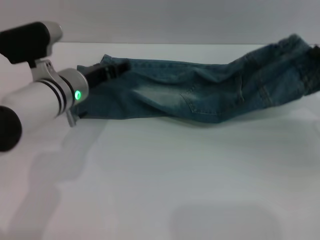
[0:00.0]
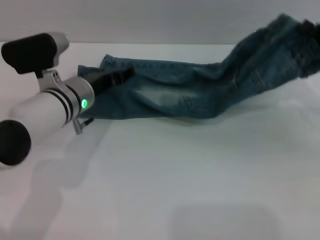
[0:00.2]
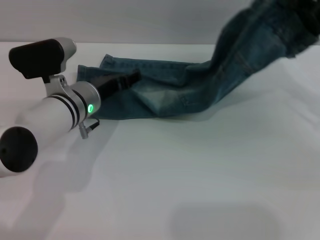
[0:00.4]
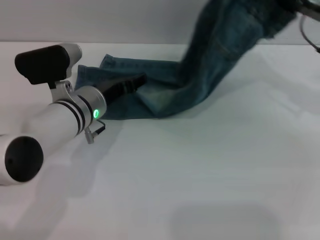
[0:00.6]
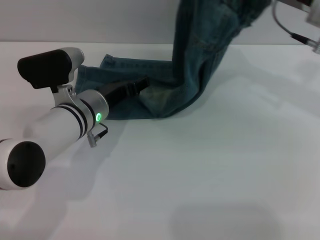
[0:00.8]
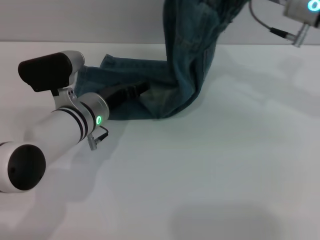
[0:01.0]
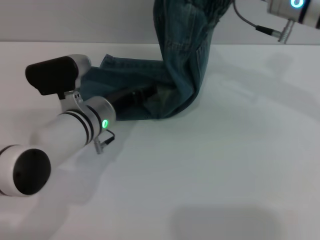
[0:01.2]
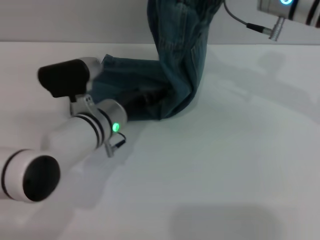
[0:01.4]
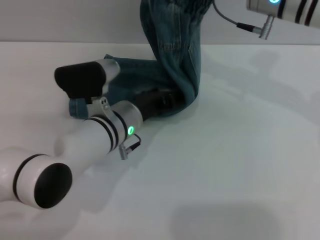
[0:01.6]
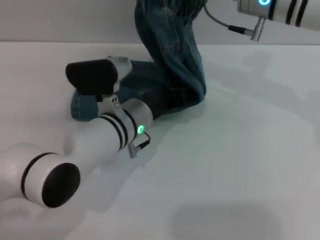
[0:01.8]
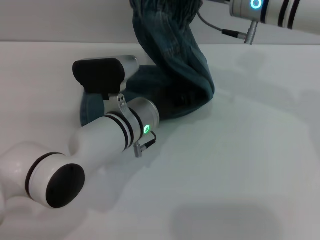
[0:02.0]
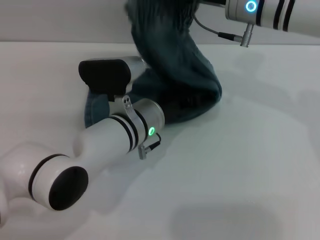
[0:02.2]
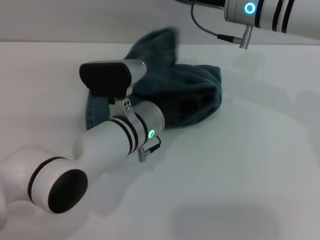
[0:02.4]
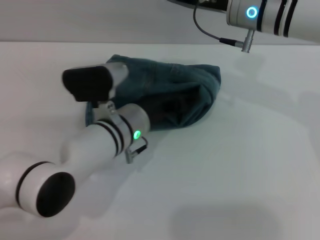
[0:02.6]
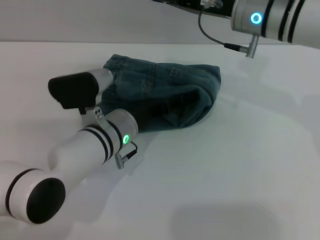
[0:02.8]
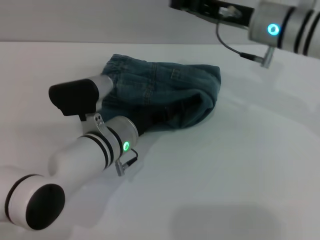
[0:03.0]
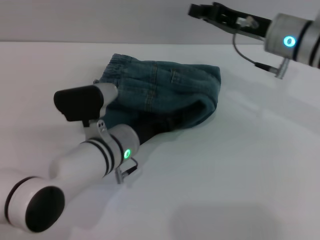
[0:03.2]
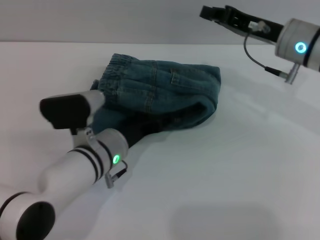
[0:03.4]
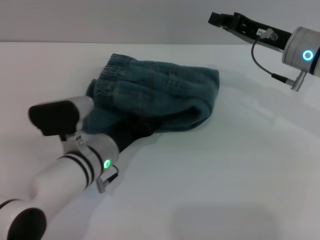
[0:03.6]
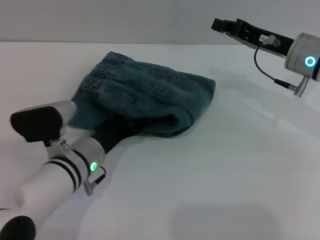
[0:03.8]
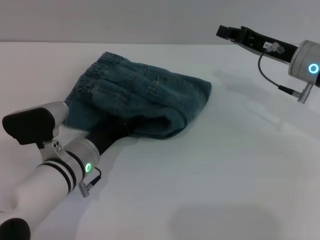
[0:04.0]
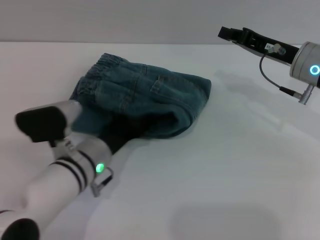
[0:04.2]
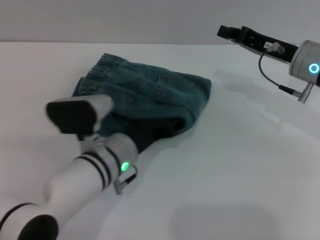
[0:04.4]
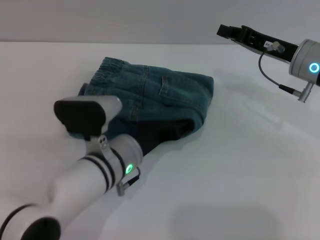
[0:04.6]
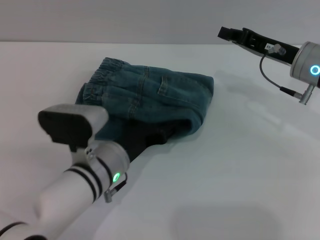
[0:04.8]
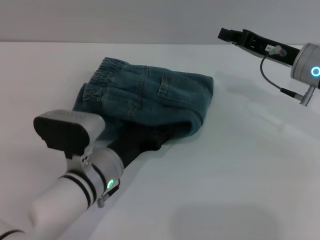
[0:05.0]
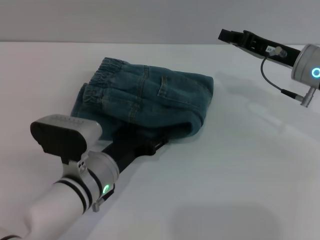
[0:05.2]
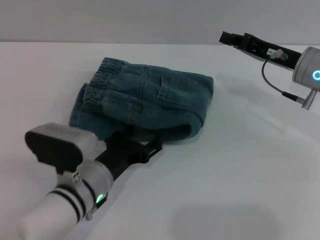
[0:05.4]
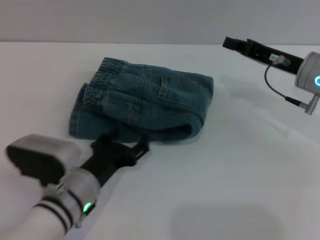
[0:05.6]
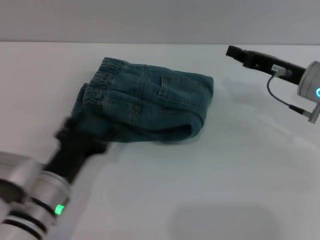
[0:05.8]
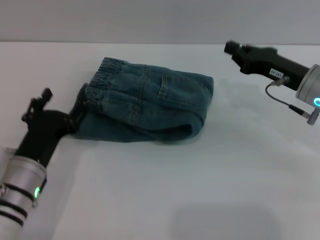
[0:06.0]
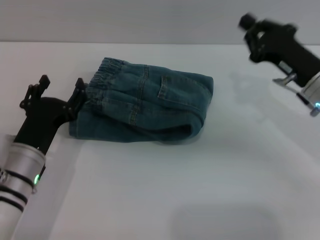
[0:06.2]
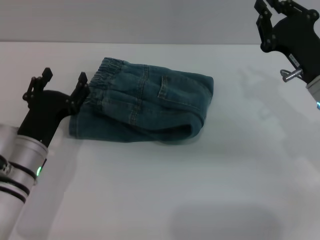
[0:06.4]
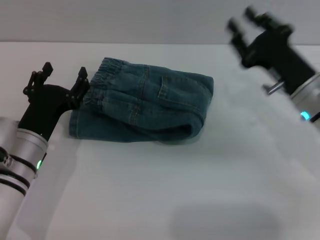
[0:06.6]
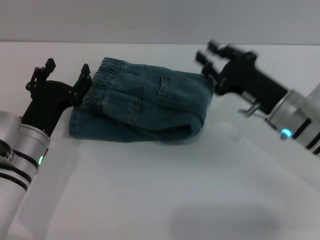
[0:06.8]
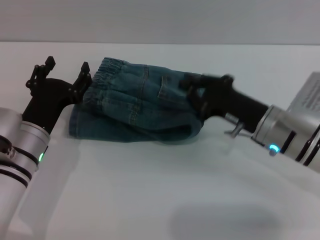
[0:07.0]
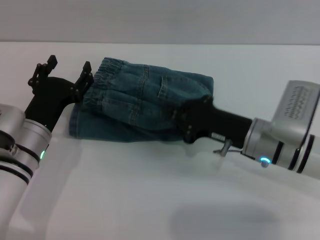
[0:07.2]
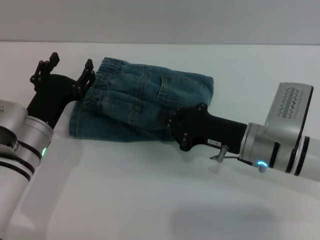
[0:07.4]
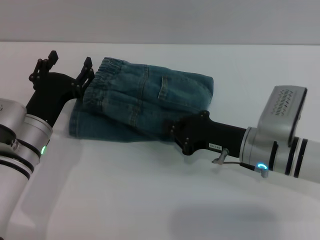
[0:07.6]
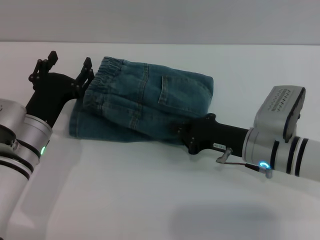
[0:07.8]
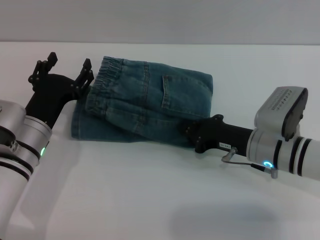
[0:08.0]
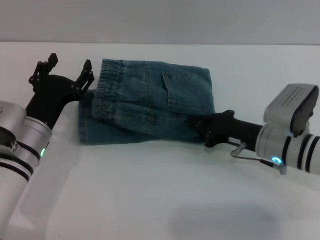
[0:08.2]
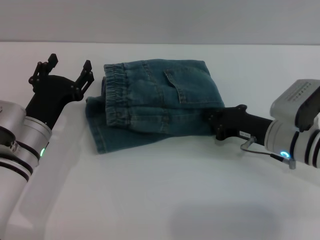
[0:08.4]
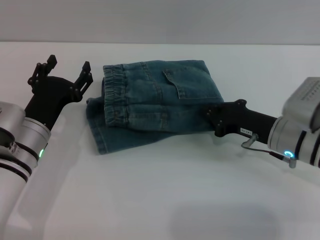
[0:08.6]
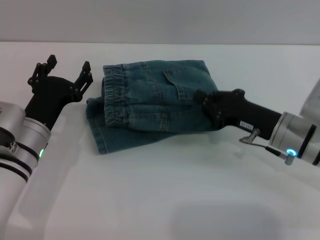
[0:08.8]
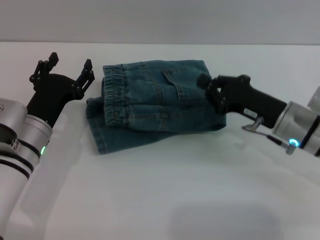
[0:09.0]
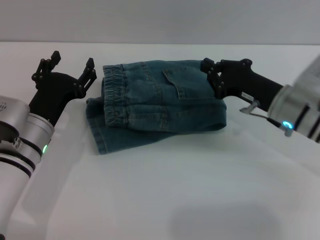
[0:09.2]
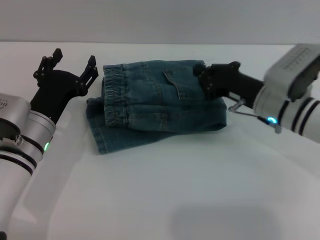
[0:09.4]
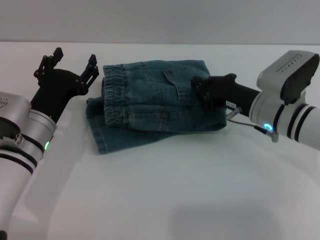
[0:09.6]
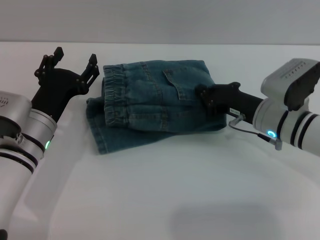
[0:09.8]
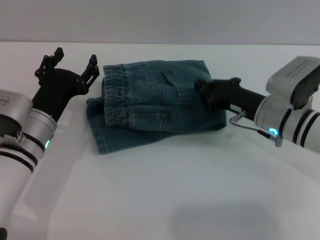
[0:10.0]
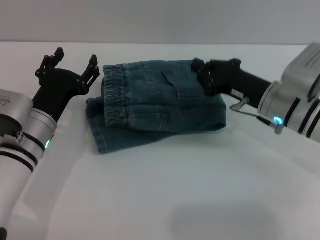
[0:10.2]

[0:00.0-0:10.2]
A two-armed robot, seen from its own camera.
Step, 0:00.0 to 0:03.2: Fold the pants from right to left with the right gripper.
0:00.0 to 0:01.4: The right gripper travels to the left, upward and forward by some 25 cm. Meanwhile the left gripper is displaced to the right by approximately 5 cm.
0:03.0 to 0:04.4: The right gripper is displaced to the right by about 5 cm.
0:04.4 to 0:05.8: The left gripper shifts about 10 cm to the left and backward.
0:05.8 to 0:07.2: The right gripper shifts roughly 10 cm to the left and backward, while the left gripper moves forward, roughly 5 cm.
0:08.8 to 0:10.2: There are only small adjustments of the grippers.

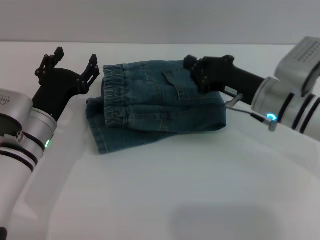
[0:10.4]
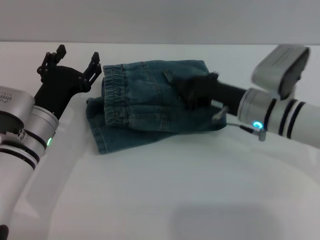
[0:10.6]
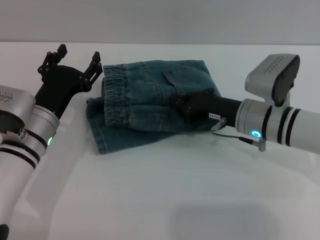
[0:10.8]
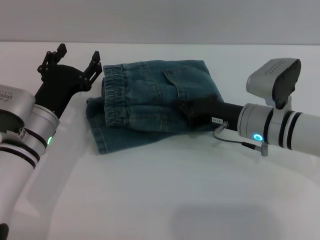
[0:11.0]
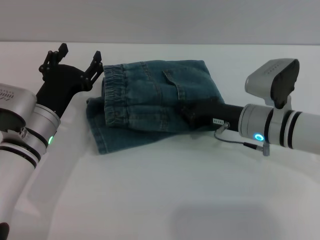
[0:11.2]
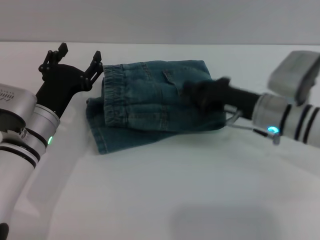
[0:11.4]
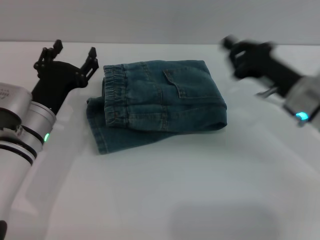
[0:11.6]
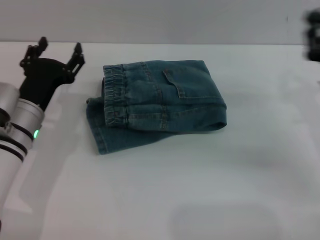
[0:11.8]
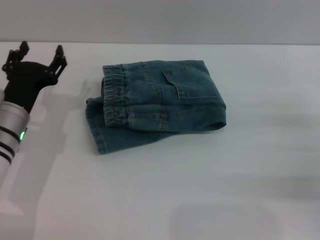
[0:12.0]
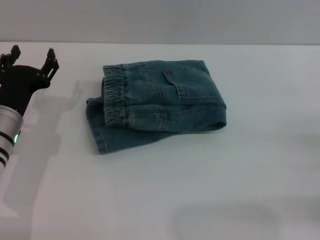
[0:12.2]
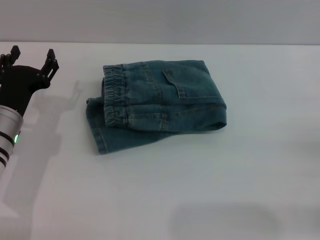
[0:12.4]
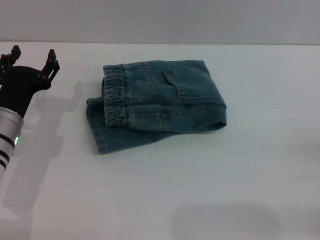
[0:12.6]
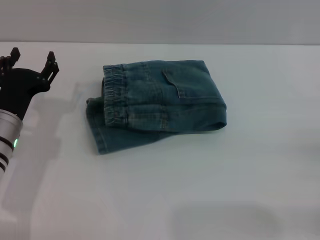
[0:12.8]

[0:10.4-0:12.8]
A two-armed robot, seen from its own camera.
0:10.4 to 0:11.6: The grippers make only small movements.
0:11.6 to 0:12.8: The right gripper moves backward and to the right, about 20 cm, and opens up.
